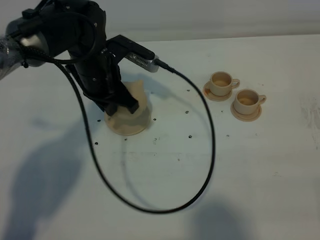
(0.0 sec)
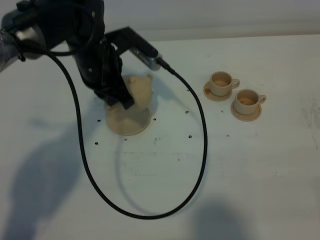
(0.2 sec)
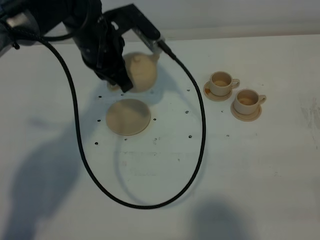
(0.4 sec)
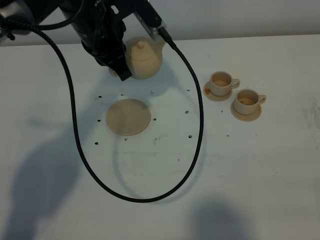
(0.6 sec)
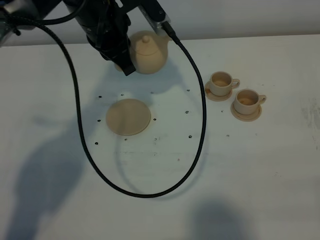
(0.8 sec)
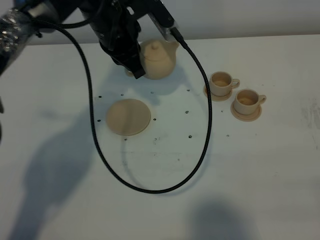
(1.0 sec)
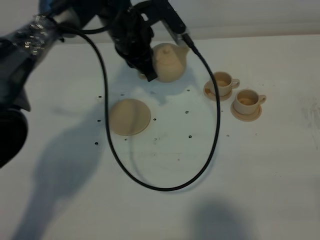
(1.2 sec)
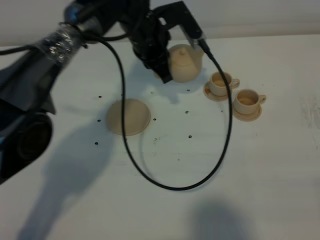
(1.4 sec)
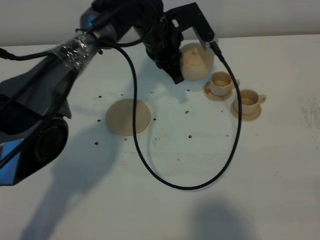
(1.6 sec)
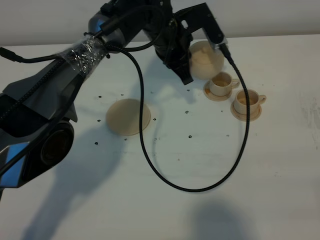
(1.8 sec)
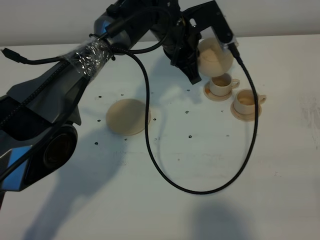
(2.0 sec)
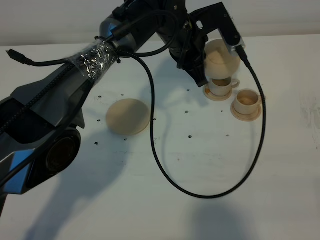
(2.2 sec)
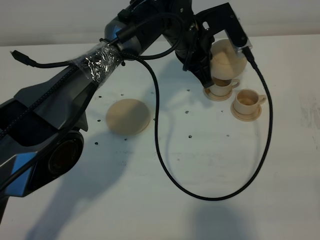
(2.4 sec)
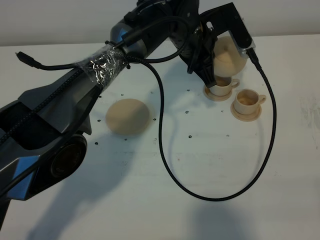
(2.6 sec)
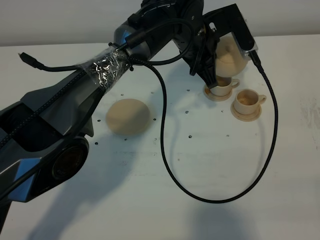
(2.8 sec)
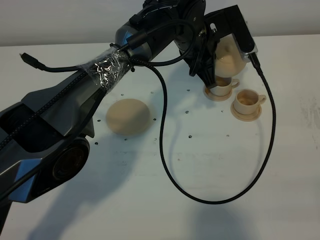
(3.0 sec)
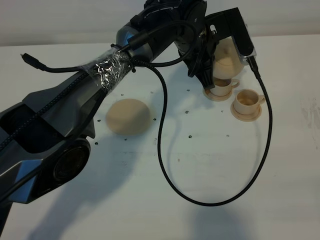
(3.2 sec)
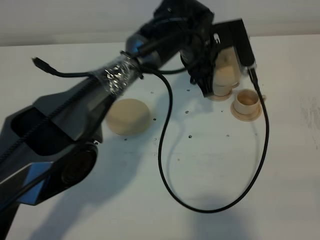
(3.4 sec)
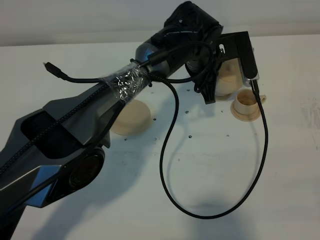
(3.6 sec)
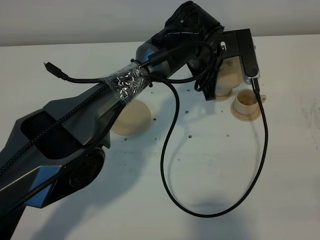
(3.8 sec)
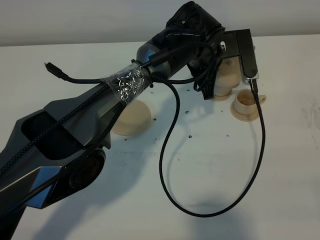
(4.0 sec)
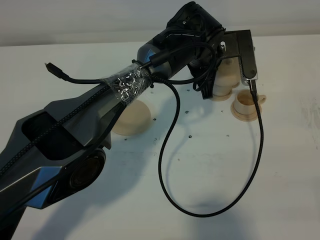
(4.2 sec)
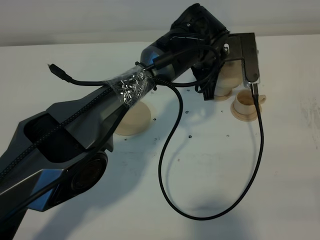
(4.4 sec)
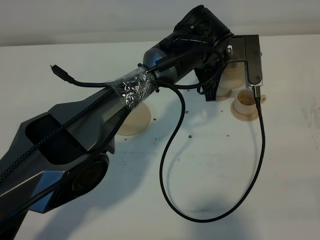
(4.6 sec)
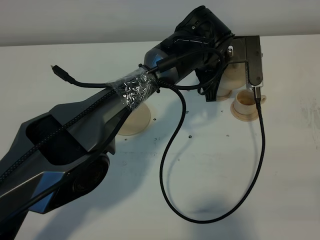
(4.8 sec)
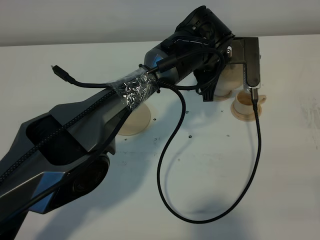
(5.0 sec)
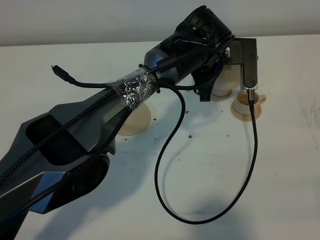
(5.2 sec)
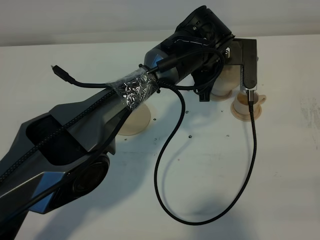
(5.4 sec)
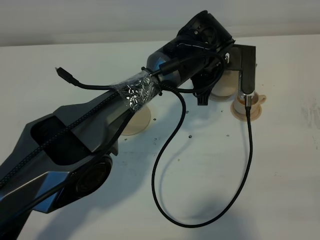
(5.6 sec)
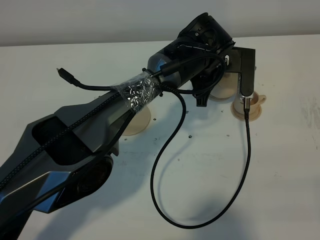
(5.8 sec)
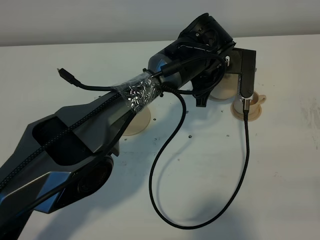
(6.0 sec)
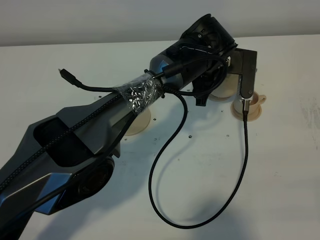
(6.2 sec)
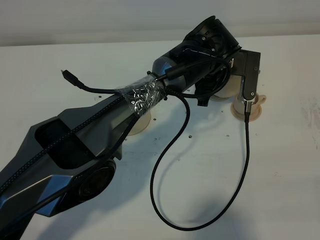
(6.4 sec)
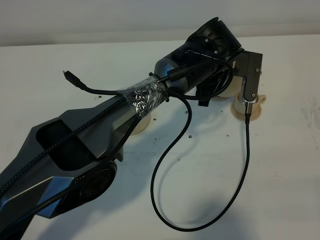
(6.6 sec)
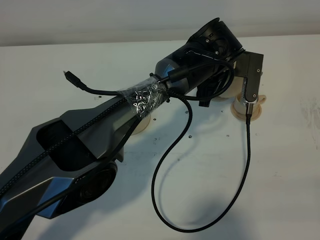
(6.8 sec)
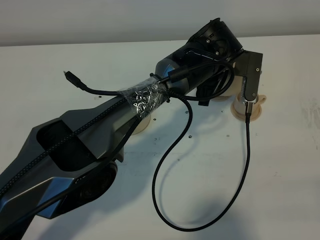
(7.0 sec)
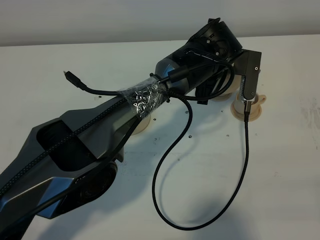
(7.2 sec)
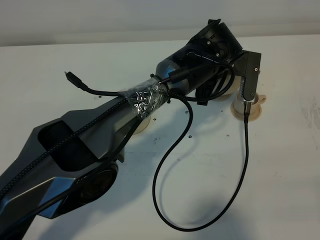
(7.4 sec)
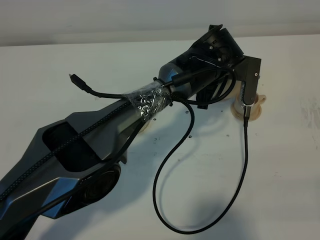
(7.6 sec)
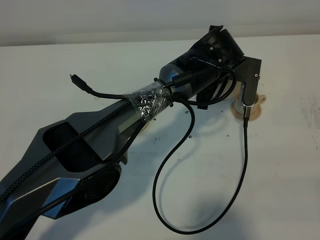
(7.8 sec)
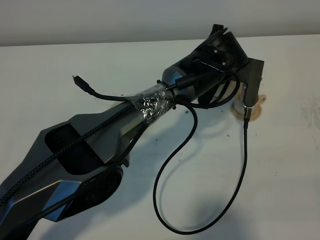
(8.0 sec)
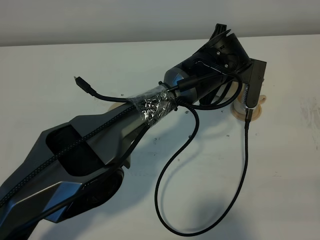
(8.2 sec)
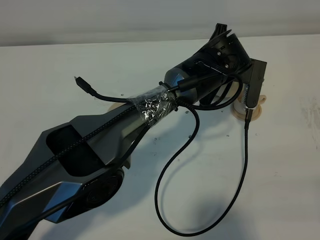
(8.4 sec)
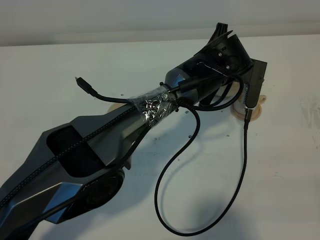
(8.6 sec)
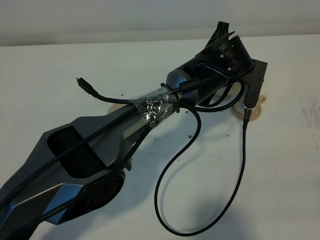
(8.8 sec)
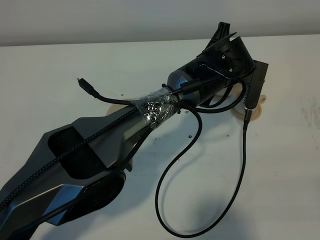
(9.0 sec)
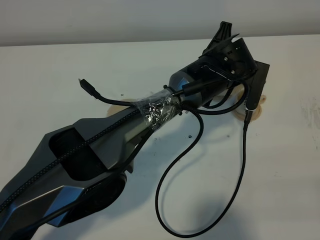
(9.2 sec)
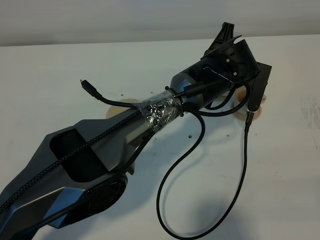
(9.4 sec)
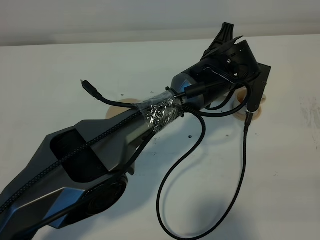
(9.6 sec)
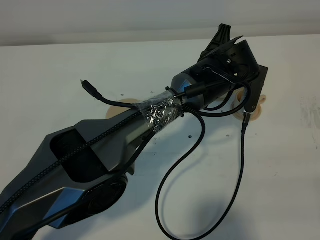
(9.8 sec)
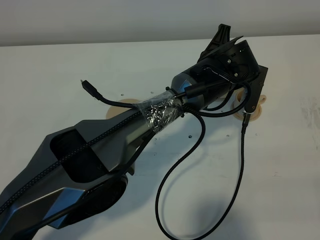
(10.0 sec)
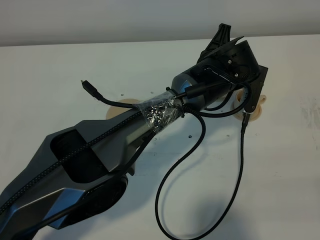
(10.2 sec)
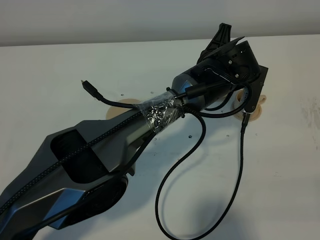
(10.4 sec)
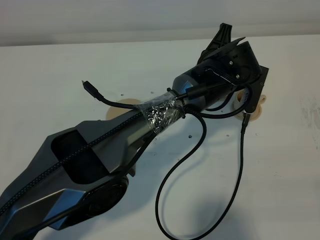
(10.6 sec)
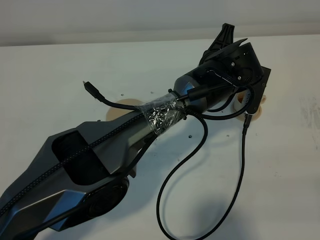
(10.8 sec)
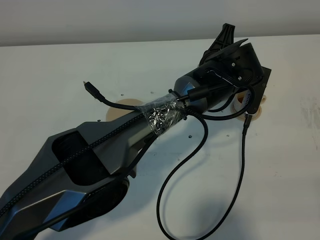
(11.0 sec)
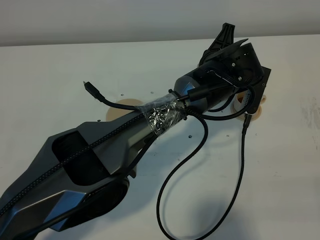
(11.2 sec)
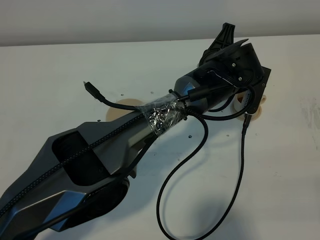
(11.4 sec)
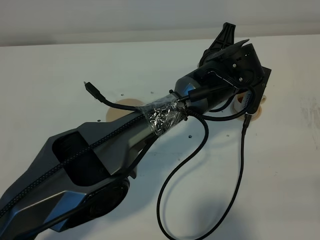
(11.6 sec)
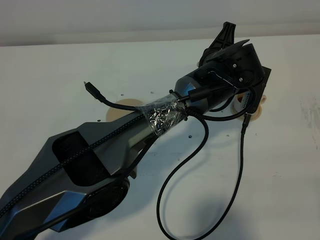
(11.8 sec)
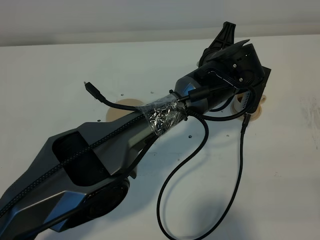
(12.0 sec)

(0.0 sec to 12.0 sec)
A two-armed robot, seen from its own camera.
Task of the whole recording: grasp the brown teapot and pour the tea into the two brown teacups one by one, put the brown teapot back in its original place.
0.0 sec - 1.6 sec: The left gripper is displaced to the right and forward by about 15 cm.
1.6 sec - 3.0 sec: The left gripper goes some 5 cm to the right.
4.4 sec - 7.6 sec: The grippers make only small movements.
7.6 sec - 9.0 sec: There are only small adjustments of the grippers.
9.0 sec - 10.4 sec: Both grippers stay about where they are.
10.4 sec - 12.0 sec: Neither gripper changes place.

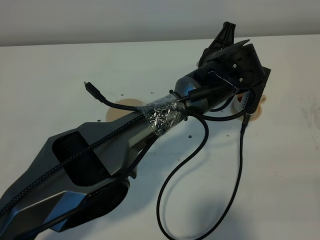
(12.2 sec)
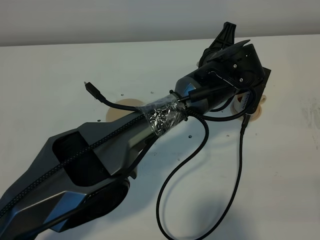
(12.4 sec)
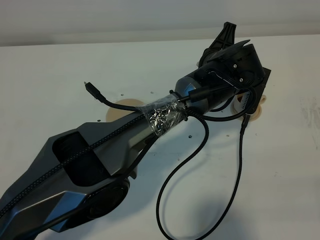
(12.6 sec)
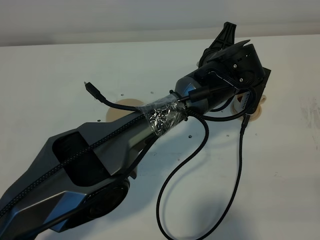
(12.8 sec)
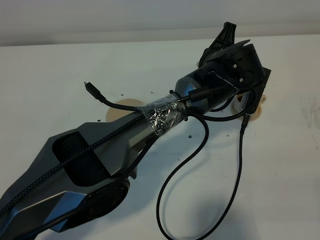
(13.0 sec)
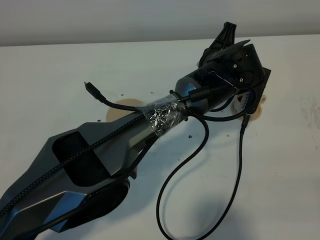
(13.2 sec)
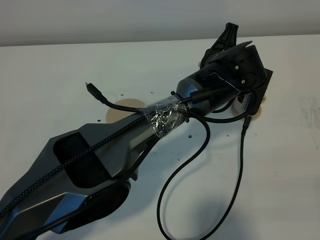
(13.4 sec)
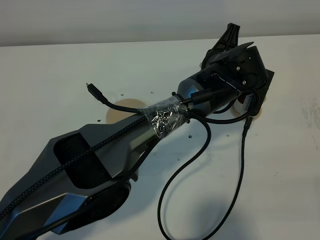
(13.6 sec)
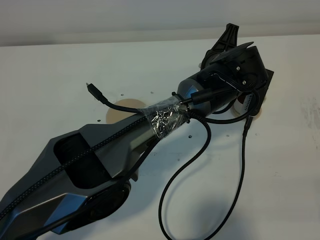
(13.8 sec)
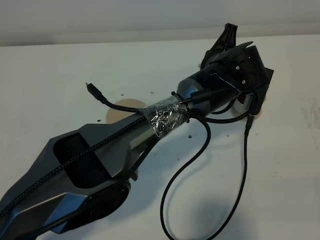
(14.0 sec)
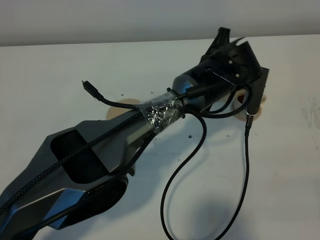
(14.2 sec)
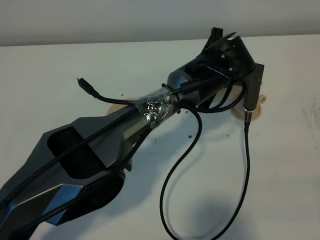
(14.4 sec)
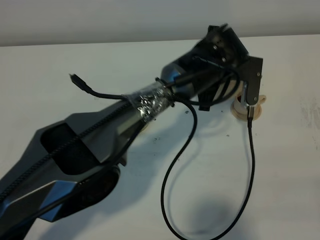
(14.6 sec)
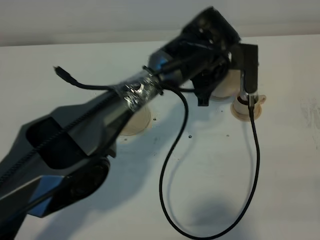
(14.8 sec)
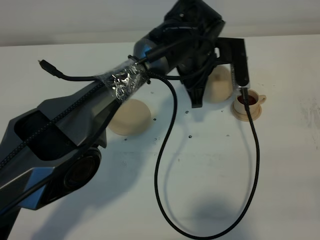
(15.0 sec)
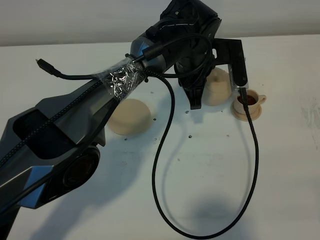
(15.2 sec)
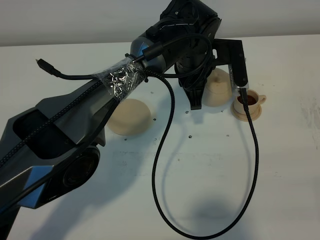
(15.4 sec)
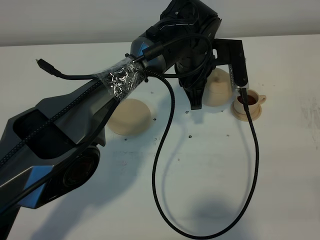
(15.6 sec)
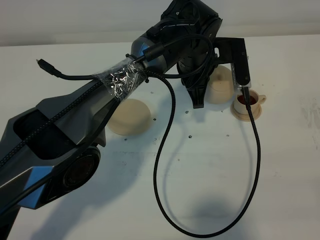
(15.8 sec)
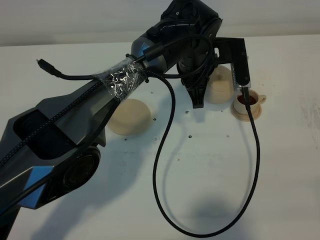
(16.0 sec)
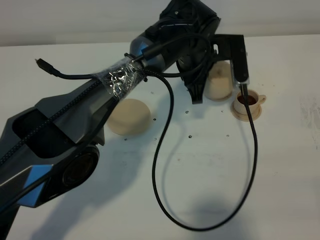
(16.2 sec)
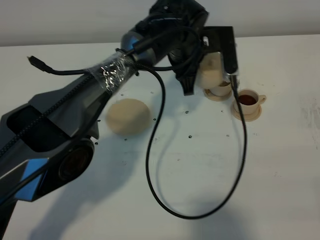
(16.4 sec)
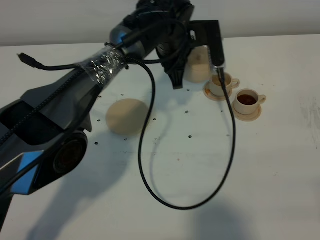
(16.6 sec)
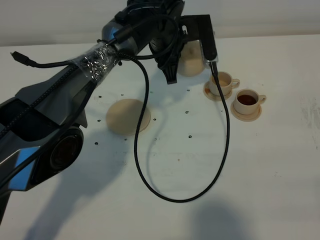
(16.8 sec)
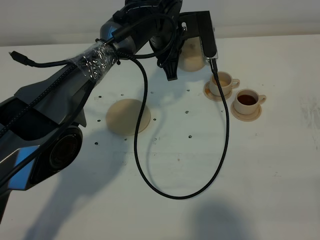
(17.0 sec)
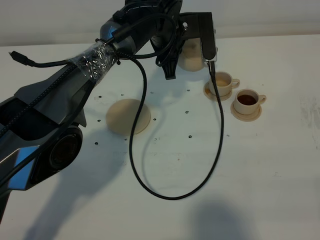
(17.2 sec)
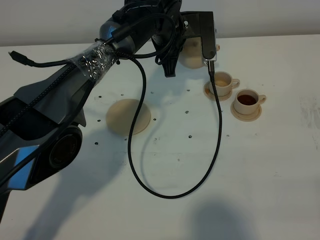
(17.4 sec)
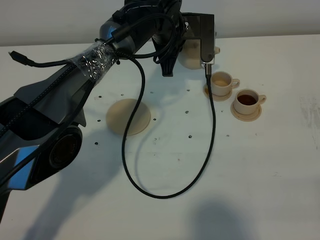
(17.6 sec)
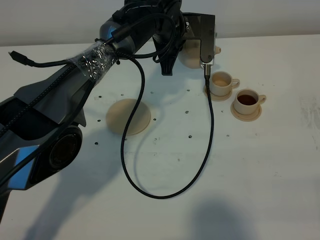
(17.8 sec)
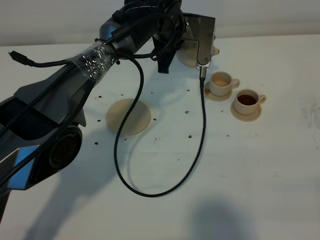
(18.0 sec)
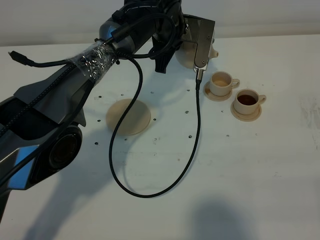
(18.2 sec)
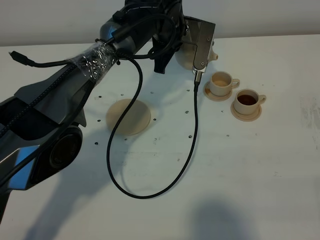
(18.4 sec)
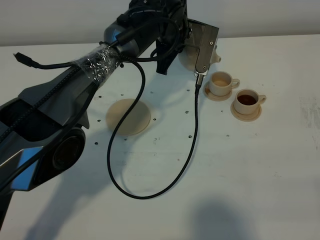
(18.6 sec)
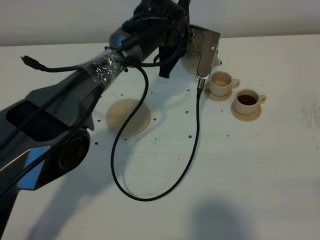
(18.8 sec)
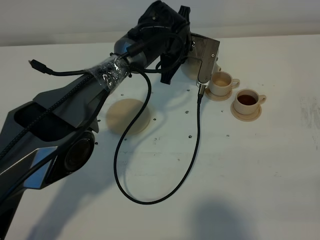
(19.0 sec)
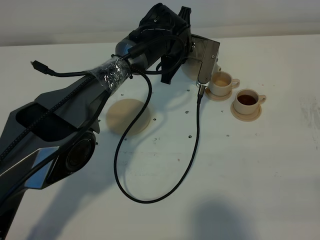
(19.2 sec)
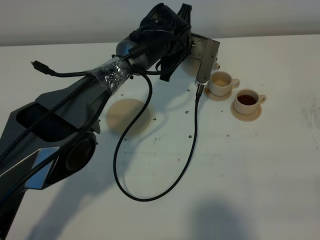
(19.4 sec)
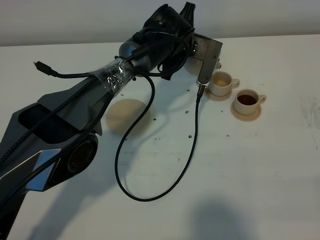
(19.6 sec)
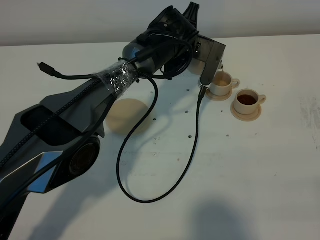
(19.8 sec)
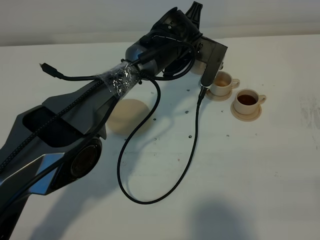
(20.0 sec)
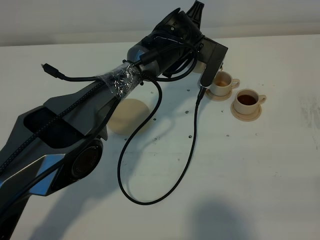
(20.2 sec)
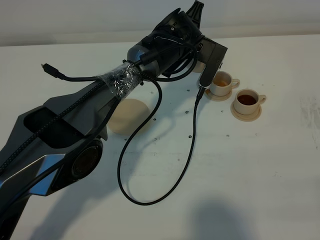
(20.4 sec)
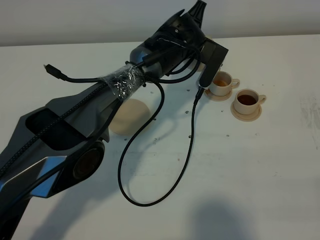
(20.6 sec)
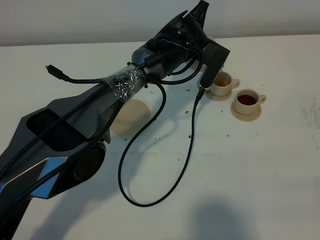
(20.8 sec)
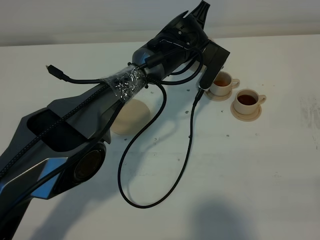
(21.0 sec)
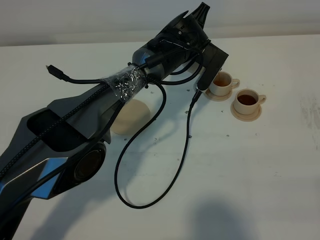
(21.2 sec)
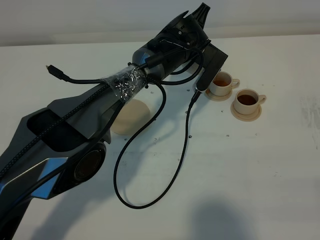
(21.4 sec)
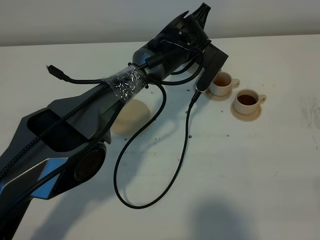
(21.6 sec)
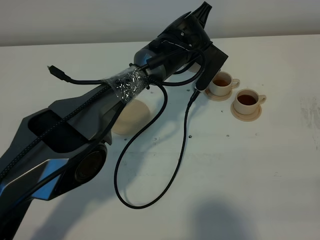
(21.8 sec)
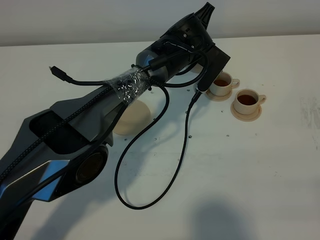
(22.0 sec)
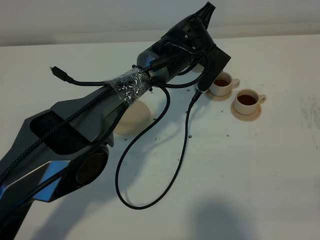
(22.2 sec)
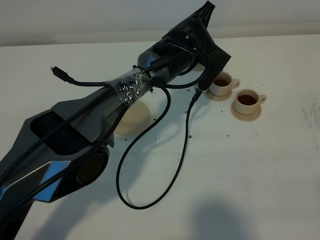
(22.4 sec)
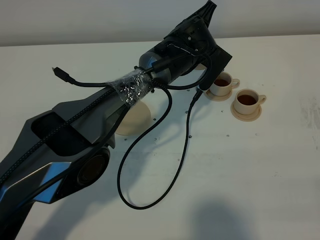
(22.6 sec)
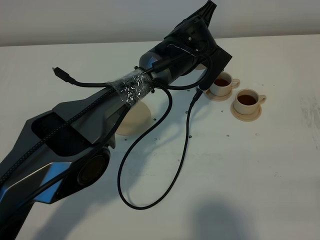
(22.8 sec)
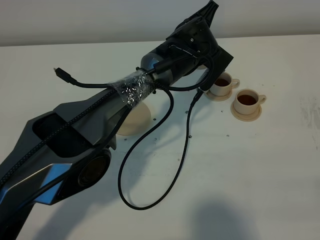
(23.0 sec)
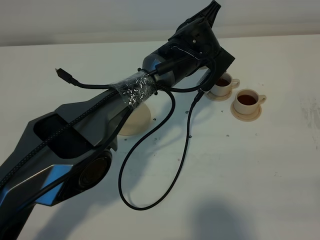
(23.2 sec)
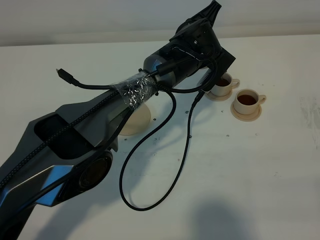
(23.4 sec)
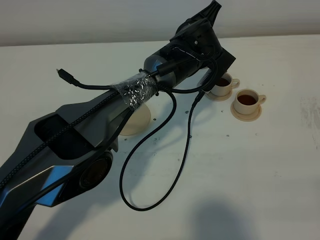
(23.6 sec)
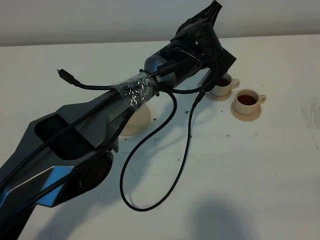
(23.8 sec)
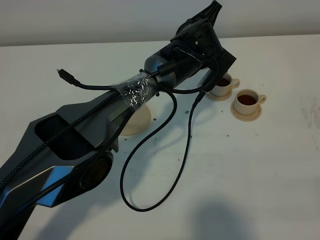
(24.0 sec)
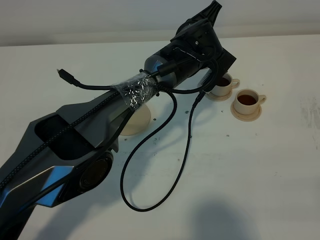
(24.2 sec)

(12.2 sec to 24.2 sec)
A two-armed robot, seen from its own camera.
Task of the whole recording: grasp the brown teapot and pour the tea into the two brown teacups one by one, put the brown teapot back in its original place.
Step, 12.2 sec - 14.6 sec: Pour tea into the teacup with the left gripper.
12.2 sec - 13.8 sec: Both grippers stay about where they are.
13.8 sec - 15.2 sec: The left gripper travels to the left by approximately 5 cm.
15.2 sec - 16.6 sec: The left gripper changes place by about 5 cm.
19.8 sec - 22.6 sec: The grippers move only a little.
22.6 sec - 24.2 sec: The two grippers keep their place.
